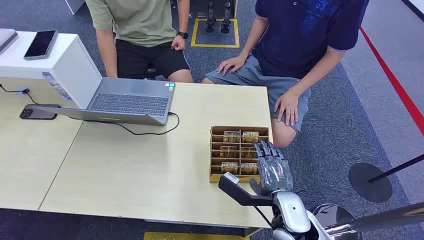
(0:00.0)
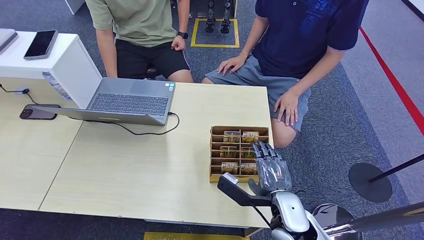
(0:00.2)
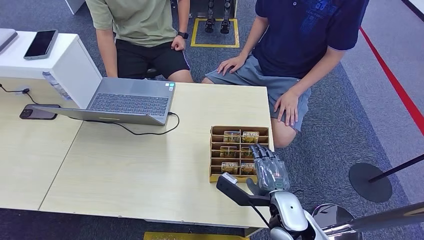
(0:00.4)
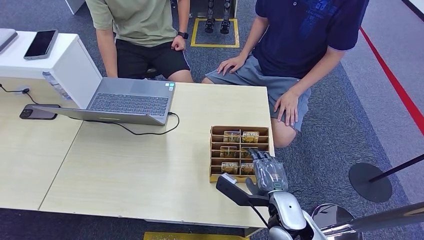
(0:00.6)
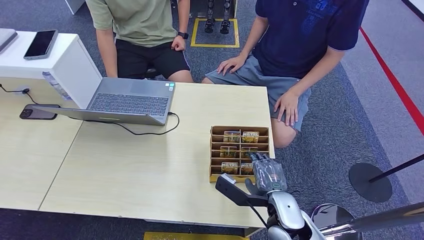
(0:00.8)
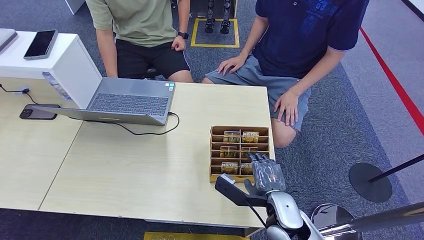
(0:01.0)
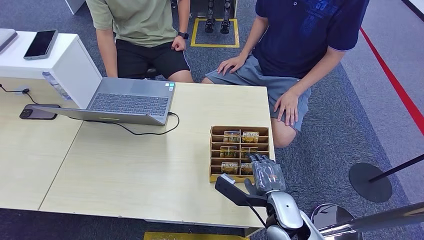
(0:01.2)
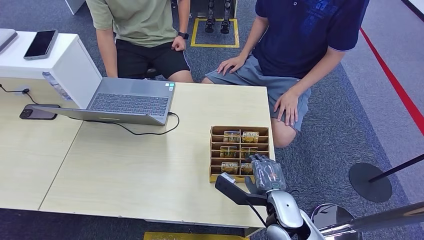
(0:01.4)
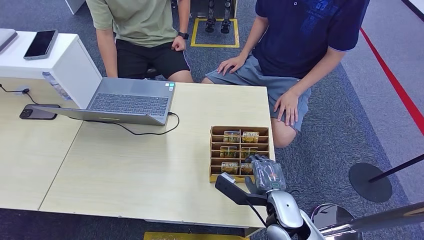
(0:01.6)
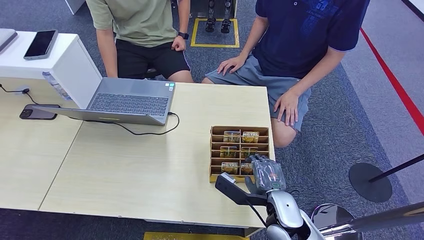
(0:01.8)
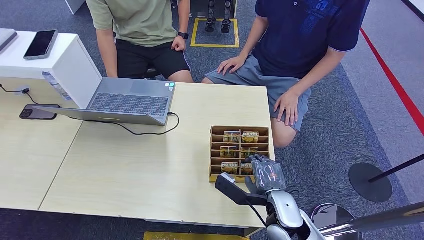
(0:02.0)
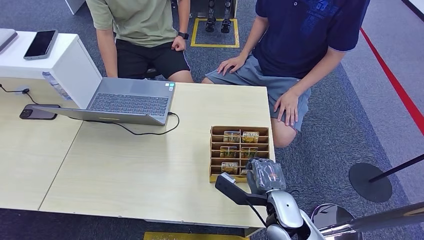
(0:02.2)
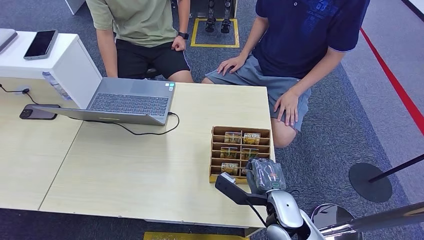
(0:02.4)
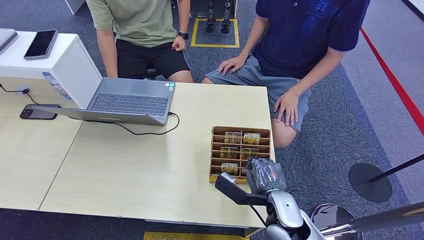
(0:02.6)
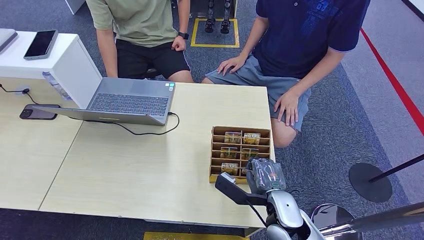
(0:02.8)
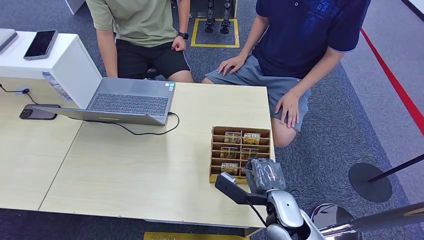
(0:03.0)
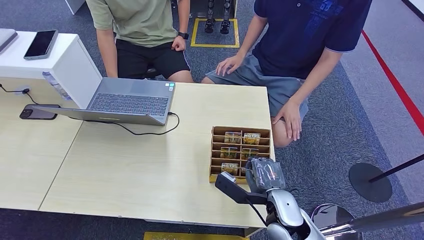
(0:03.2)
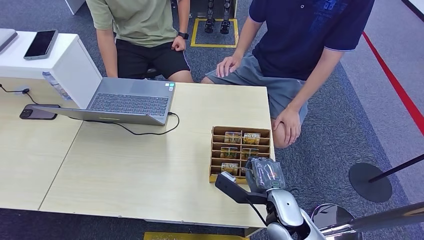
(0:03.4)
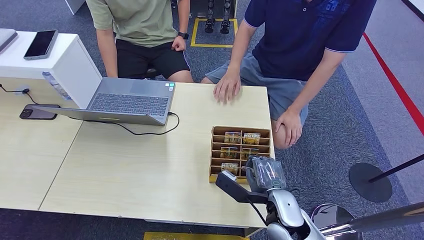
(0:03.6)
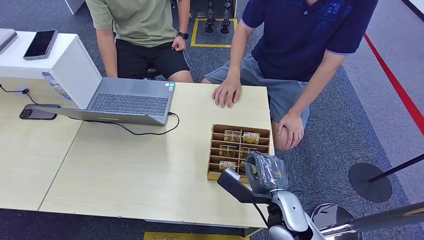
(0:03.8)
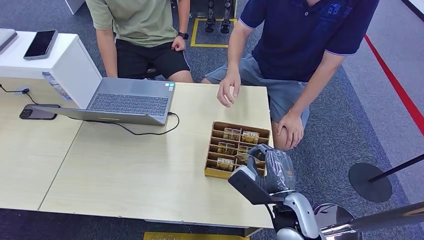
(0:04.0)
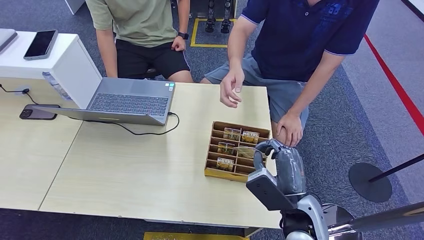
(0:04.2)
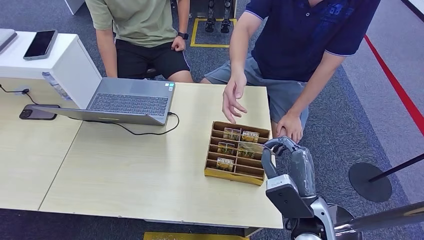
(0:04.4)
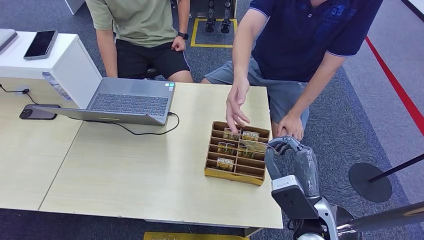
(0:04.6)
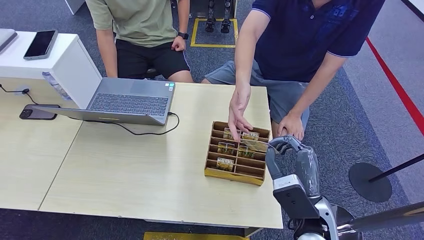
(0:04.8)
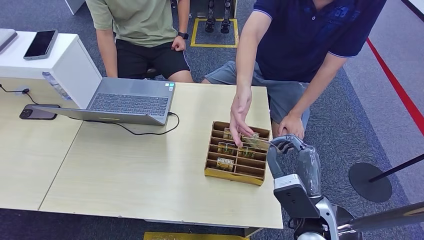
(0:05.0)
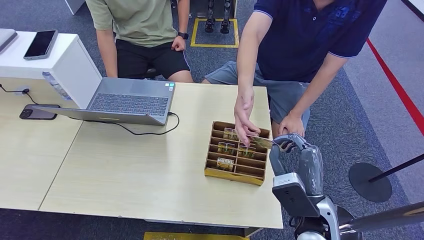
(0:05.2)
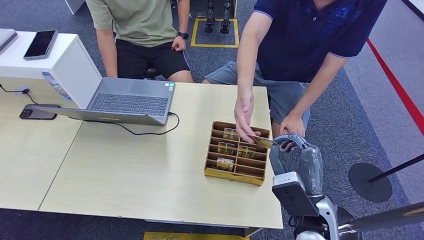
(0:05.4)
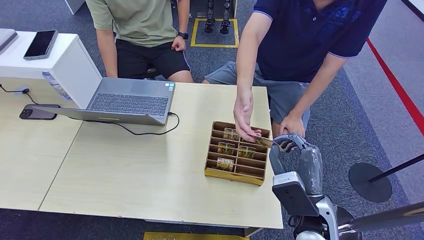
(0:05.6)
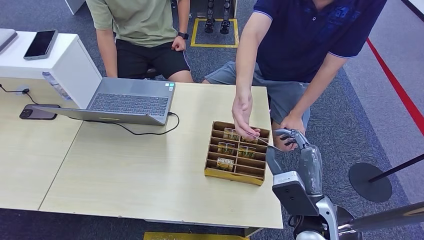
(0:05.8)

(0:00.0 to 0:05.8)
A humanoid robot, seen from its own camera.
Task of the whole recording: Pick up the card and hand it over to the target person.
Step, 0:00.0 - 0:04.4: Pick up the key card from the card box.
Step, 0:04.6 - 0:05.8: Hand the key card to the target.
0:01.4 - 0:02.8: Both hands stay about where they are.
0:02.8 - 0:04.4: The right hand shifts some 10 cm upward.
0:04.4 - 0:05.8: The hands move only a little.

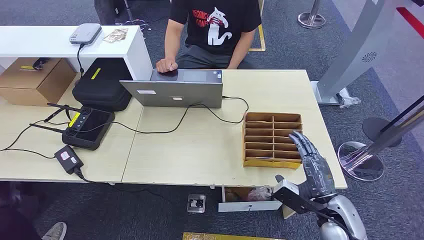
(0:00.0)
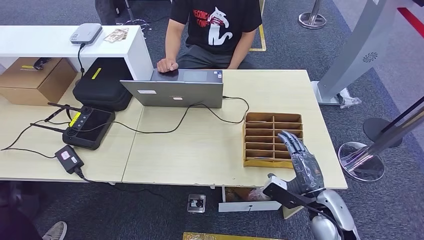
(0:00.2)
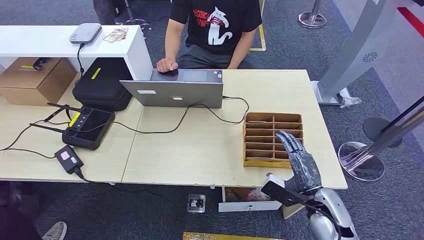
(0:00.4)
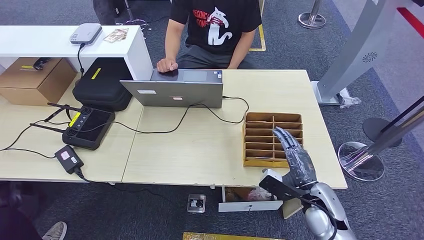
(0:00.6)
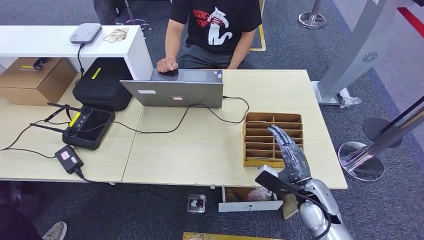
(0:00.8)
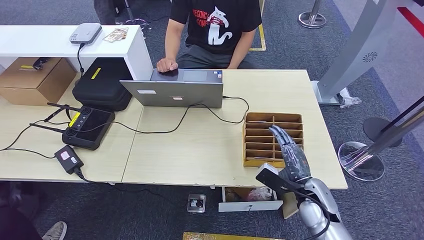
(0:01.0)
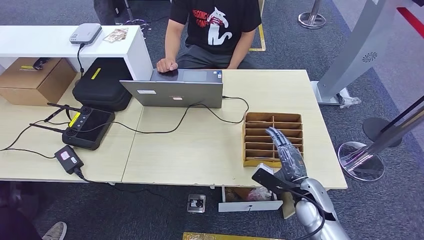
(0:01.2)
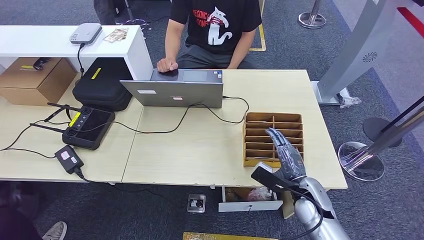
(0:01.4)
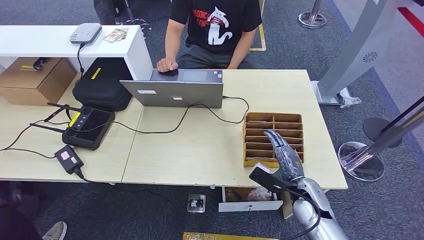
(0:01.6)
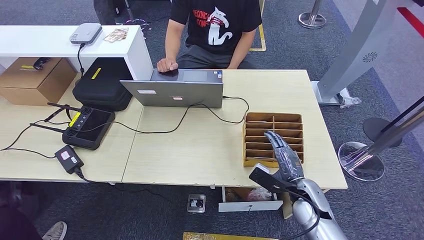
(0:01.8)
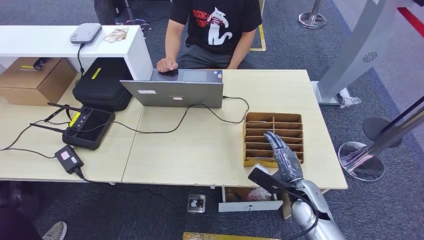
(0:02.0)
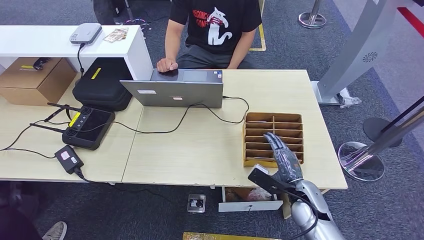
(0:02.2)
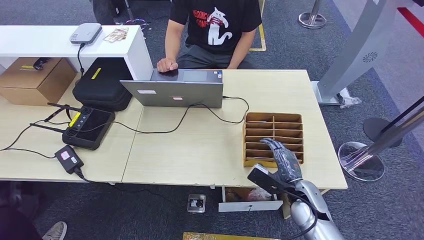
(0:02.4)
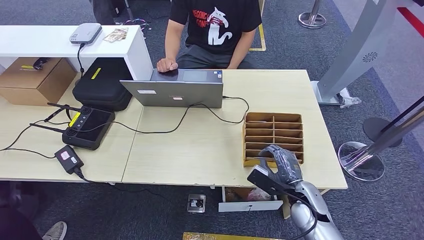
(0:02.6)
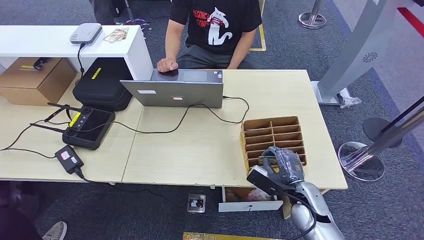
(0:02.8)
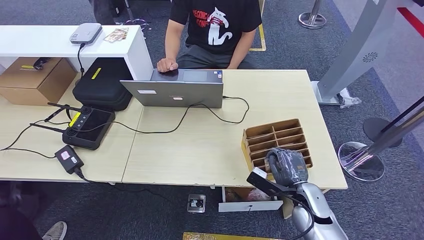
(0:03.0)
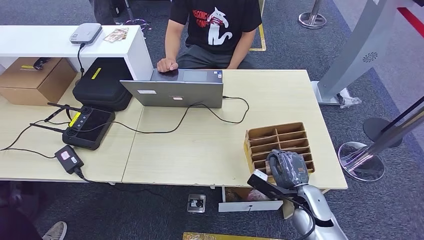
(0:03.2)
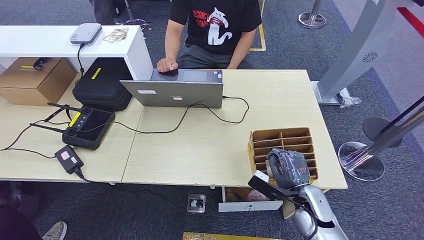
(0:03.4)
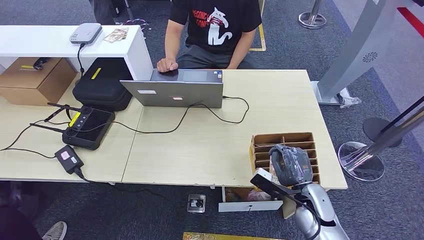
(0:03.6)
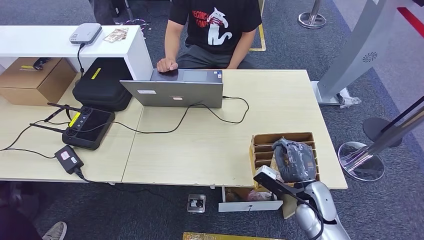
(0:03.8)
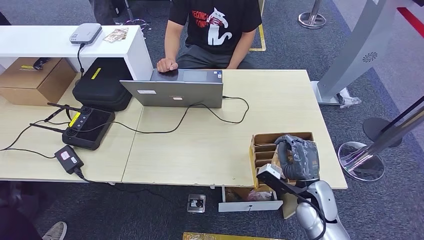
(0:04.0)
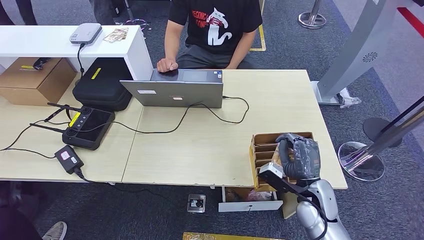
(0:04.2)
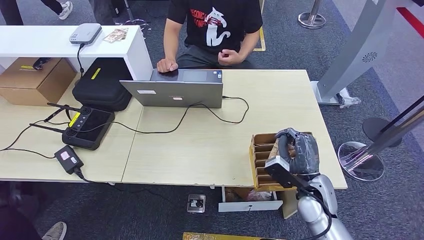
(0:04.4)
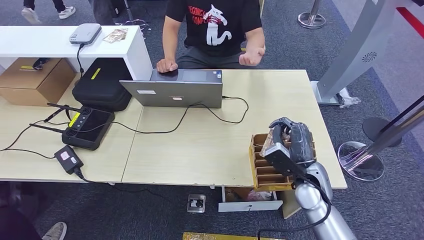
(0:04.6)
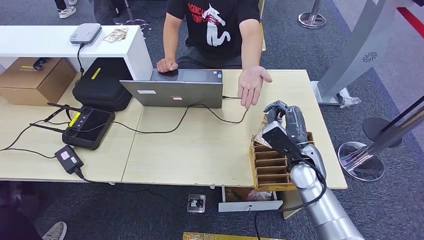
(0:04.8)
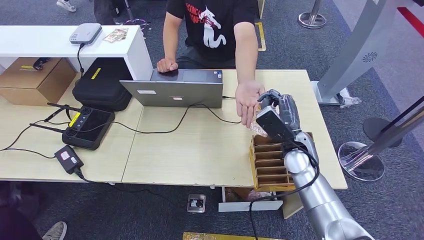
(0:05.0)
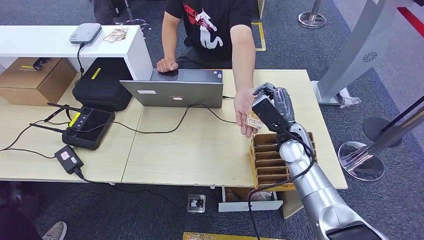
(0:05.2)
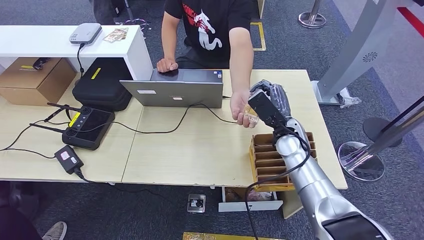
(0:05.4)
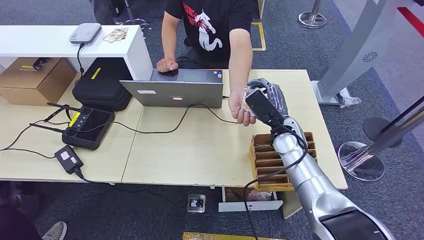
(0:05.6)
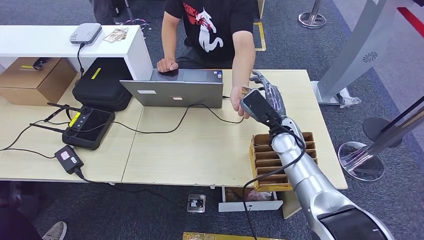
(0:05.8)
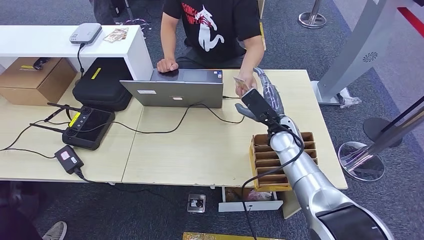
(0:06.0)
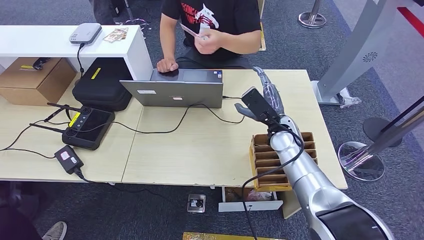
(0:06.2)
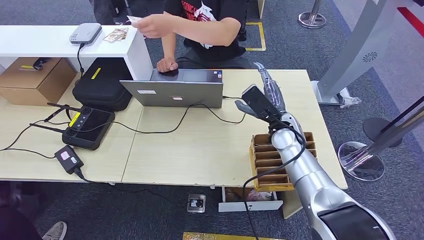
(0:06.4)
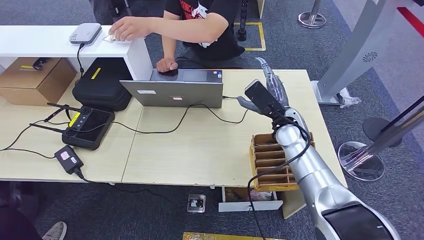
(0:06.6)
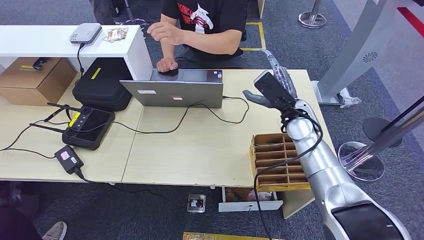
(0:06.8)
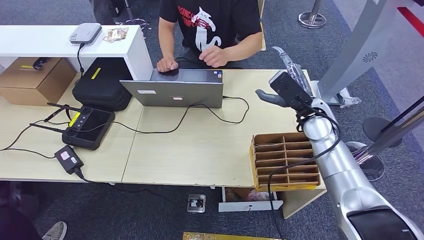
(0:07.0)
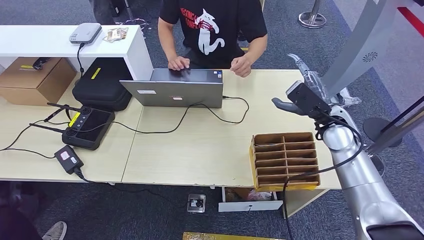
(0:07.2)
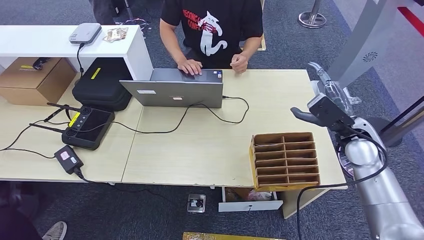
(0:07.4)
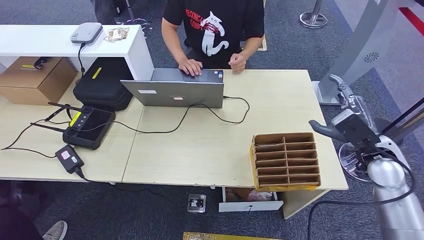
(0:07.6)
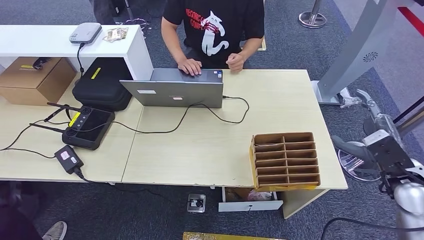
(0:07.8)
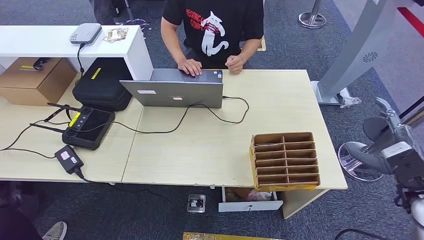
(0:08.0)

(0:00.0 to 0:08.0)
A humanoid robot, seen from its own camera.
Task of the whole recording: Pick up the card and hand it over to the target person.
Step, 0:00.0 - 0:04.4: Pick up the key card from the card box.
Step, 0:04.6 - 0:08.0: Hand the key card to the target.
0:01.6 - 0:03.2: The hands move only a little.
0:03.2 - 0:04.8: The right hand shifts about 15 cm forward, upward and to the left.
0:04.8 - 0:06.4: The right hand goes about 5 cm upward.
0:06.4 - 0:08.0: The right hand moves to the right and backward, about 35 cm.
